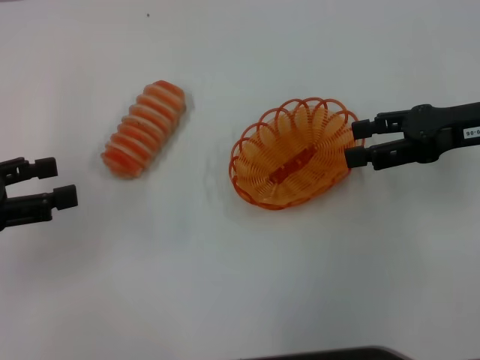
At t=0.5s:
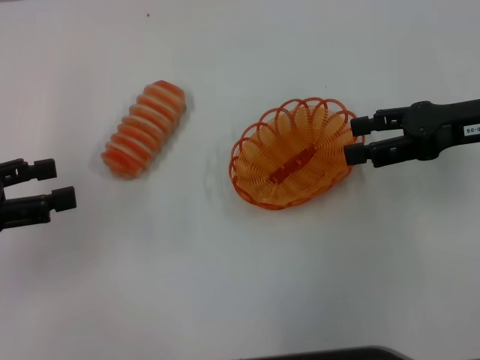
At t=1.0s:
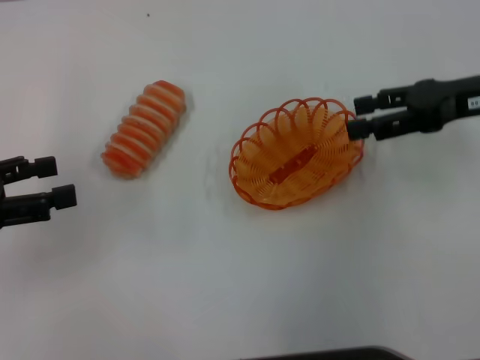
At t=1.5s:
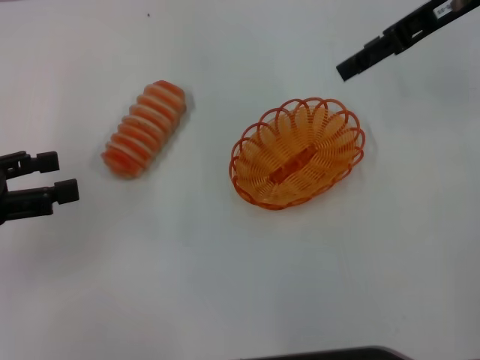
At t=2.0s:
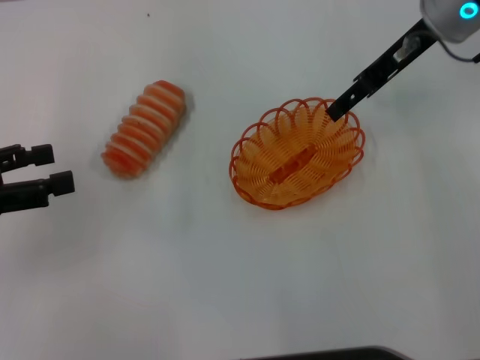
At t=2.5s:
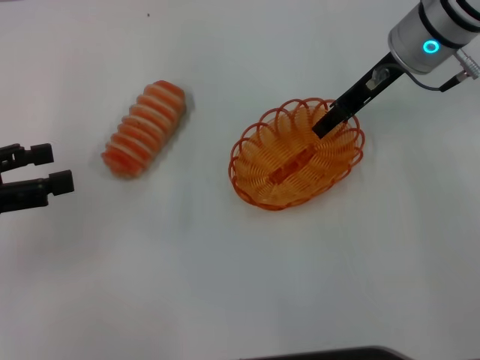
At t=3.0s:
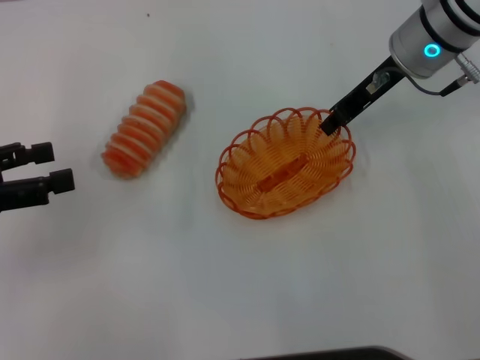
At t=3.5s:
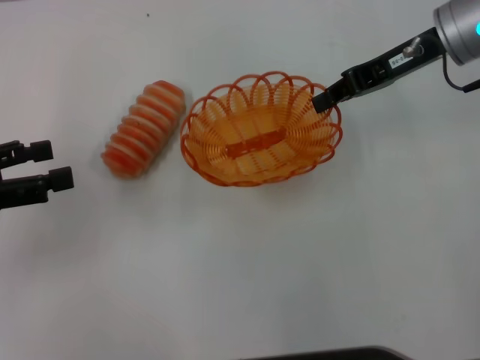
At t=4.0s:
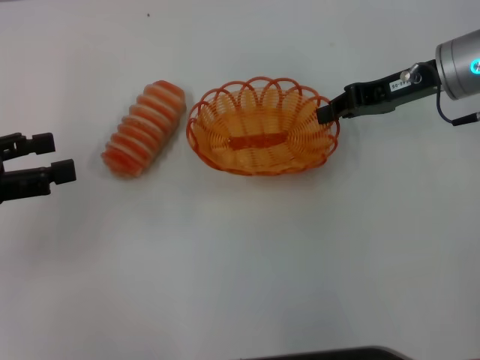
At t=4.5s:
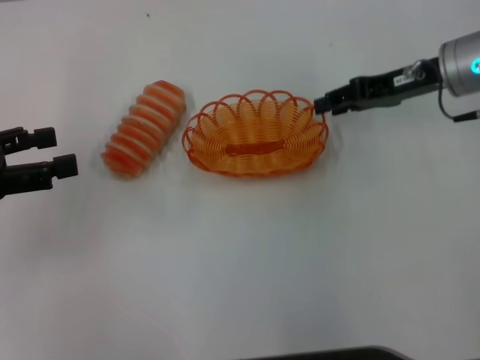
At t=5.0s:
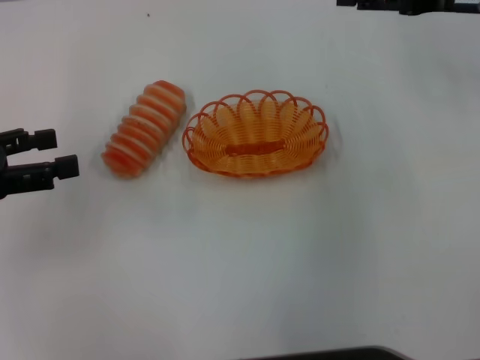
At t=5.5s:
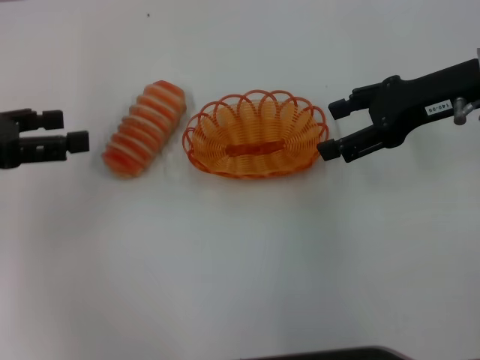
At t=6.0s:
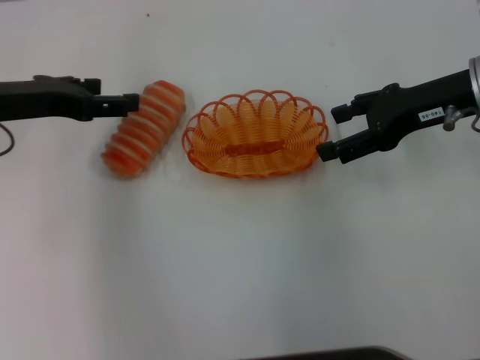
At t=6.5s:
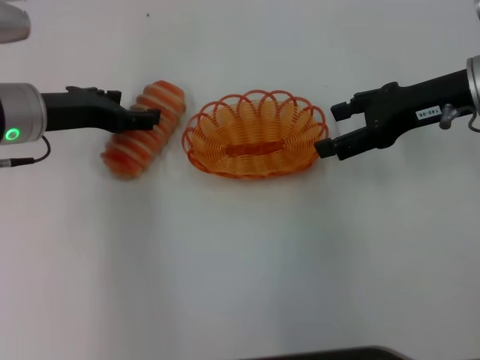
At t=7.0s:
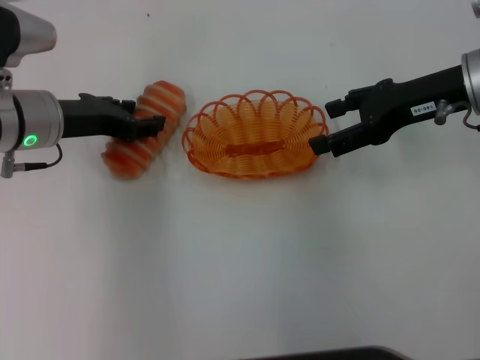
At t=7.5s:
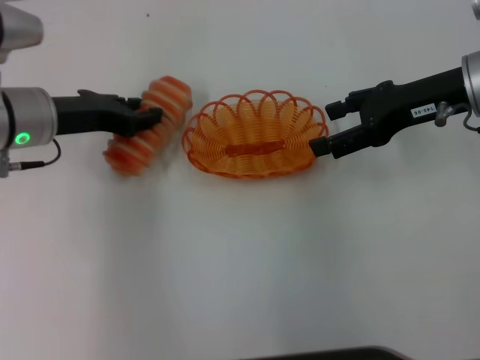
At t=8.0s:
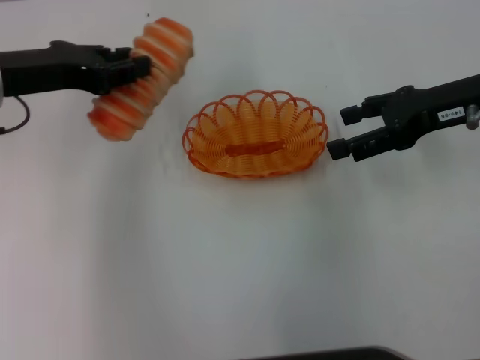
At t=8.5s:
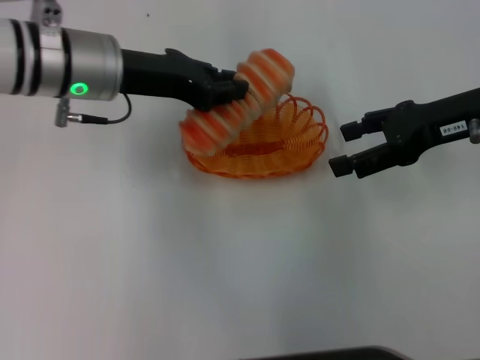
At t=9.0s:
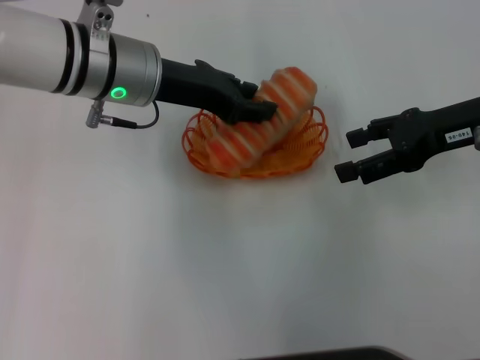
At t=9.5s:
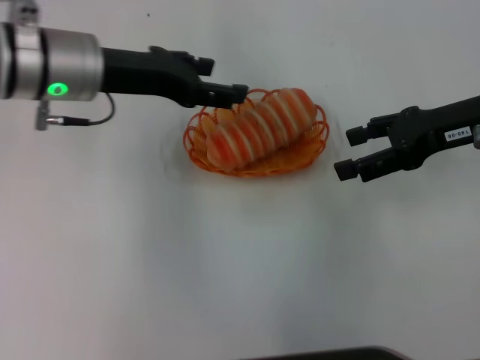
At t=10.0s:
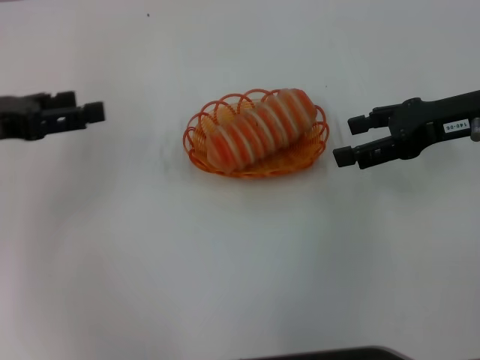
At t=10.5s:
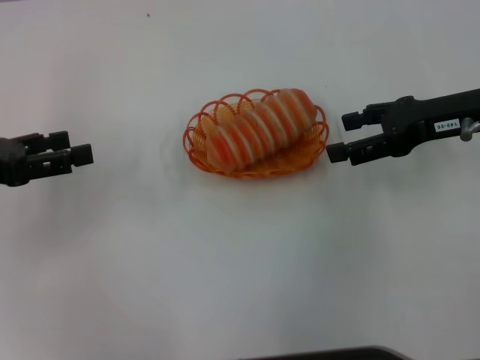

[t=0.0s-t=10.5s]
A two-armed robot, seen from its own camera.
Step, t=0.0s to t=3.5s: Pick up the basket with the right gripper.
Step, t=4.0s to t=5.0s: Place the basket in the center of view with the right gripper.
Step, t=5.5s to t=7.5s: Pick up the long bread with the left gripper.
Step, t=8.0s to t=9.5s: Place the long bread into the basket with the left gripper.
t=0.0s to t=2.0s: The right gripper moves forward, to the left and upward, some 15 cm.
t=2.0s to t=4.0s: The right gripper shifts some 5 cm downward, and closes.
t=4.0s to t=6.5s: The right gripper opens. The left gripper is displaced to the right and forward by about 15 cm.
t=6.5s to t=8.5s: The left gripper heads to the right, covering approximately 5 cm, and closes up.
t=8.5s to t=10.5s: The left gripper goes roughly 20 cm to the left and backward, and opens up.
